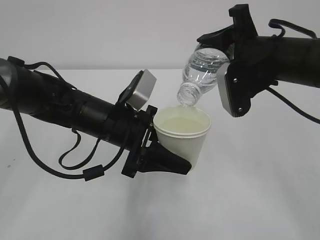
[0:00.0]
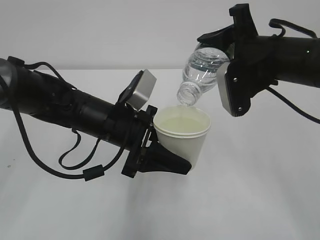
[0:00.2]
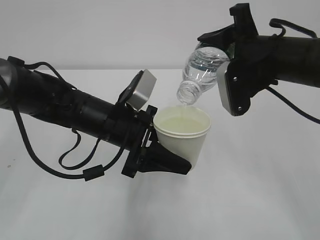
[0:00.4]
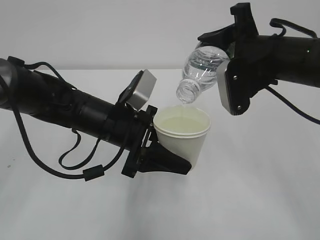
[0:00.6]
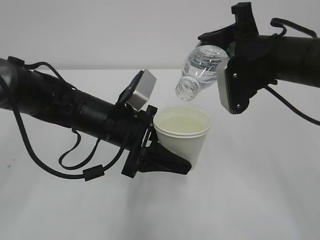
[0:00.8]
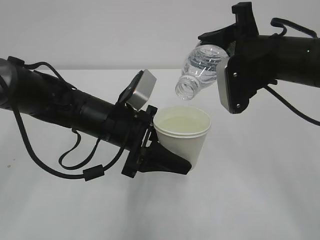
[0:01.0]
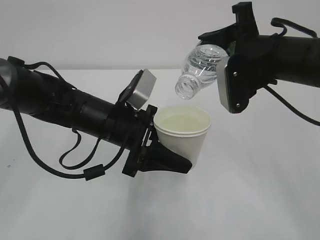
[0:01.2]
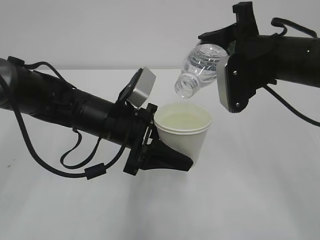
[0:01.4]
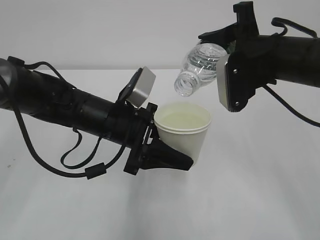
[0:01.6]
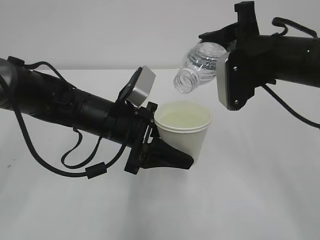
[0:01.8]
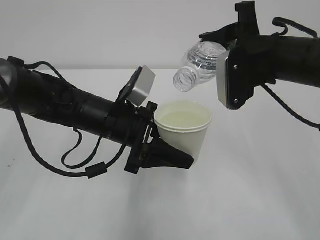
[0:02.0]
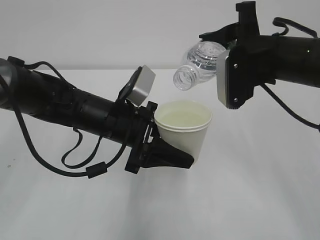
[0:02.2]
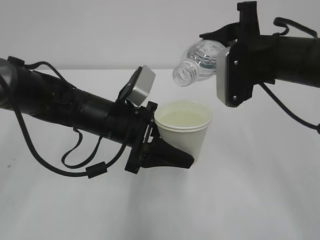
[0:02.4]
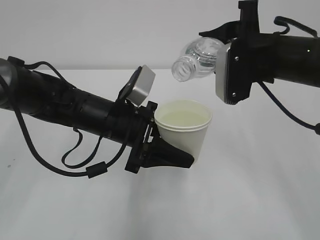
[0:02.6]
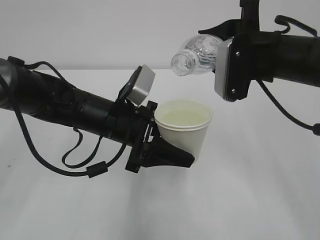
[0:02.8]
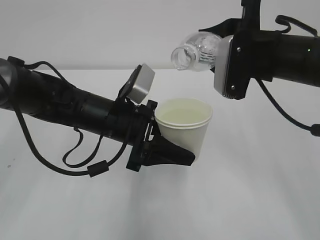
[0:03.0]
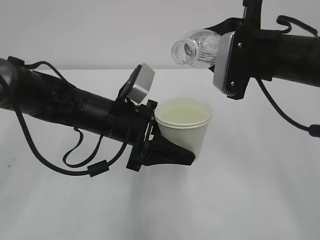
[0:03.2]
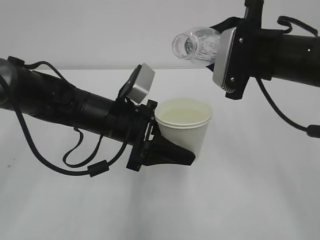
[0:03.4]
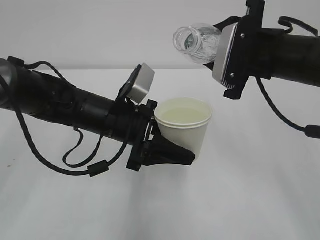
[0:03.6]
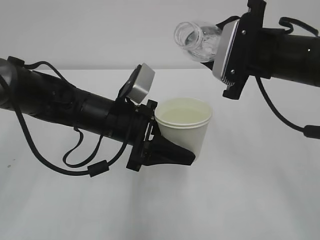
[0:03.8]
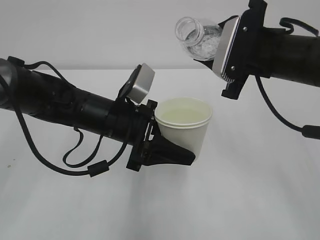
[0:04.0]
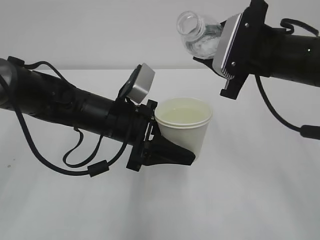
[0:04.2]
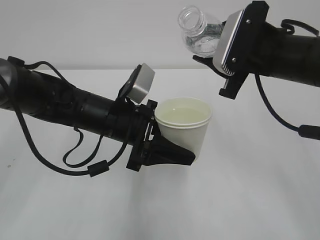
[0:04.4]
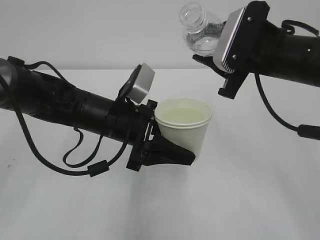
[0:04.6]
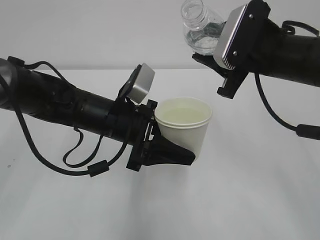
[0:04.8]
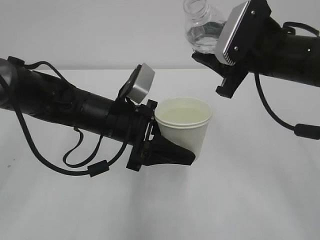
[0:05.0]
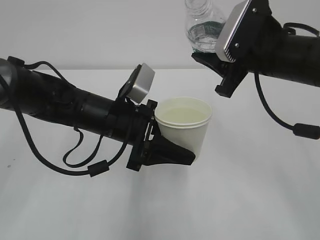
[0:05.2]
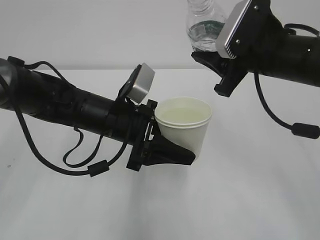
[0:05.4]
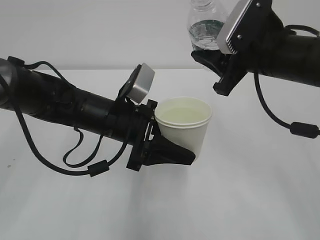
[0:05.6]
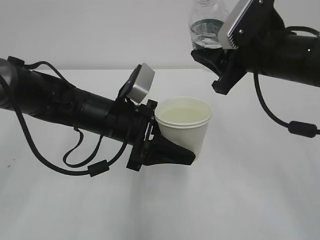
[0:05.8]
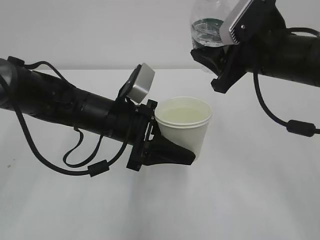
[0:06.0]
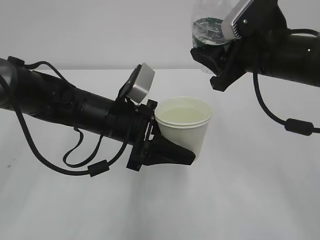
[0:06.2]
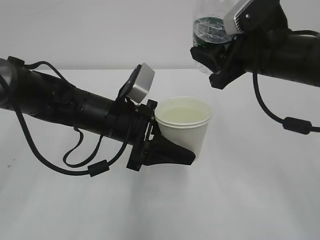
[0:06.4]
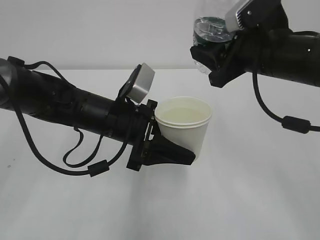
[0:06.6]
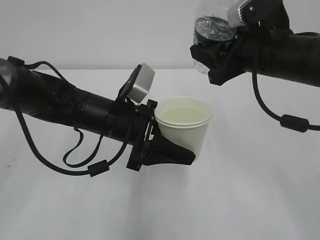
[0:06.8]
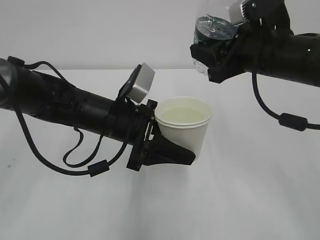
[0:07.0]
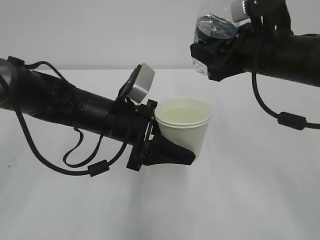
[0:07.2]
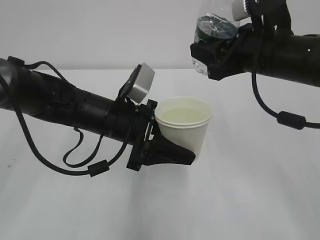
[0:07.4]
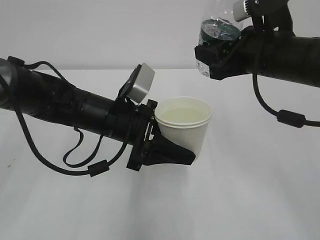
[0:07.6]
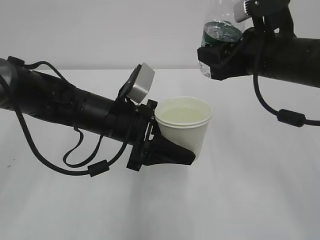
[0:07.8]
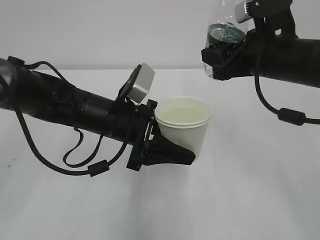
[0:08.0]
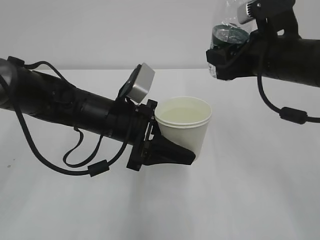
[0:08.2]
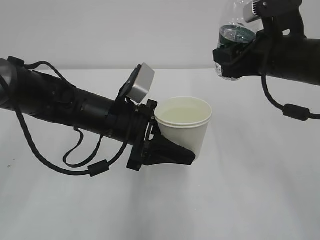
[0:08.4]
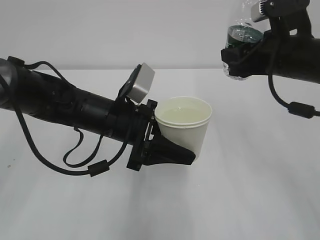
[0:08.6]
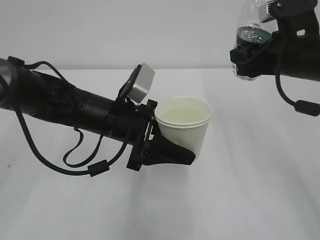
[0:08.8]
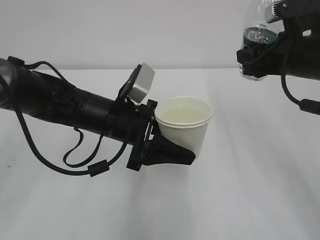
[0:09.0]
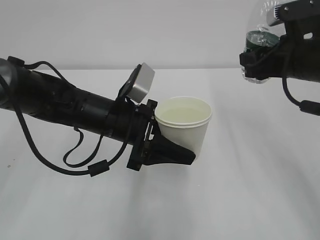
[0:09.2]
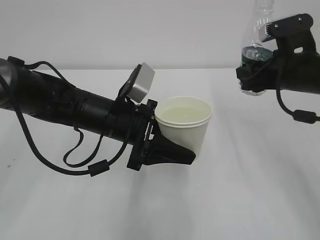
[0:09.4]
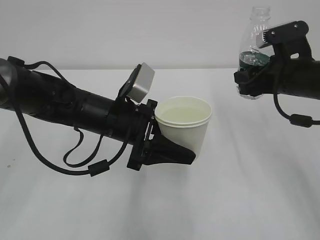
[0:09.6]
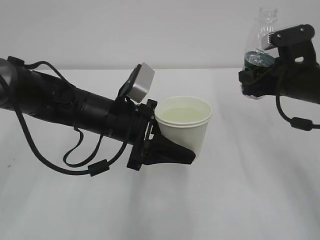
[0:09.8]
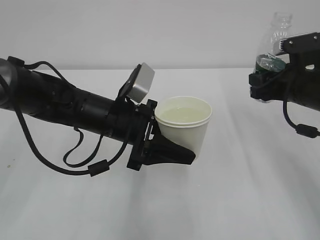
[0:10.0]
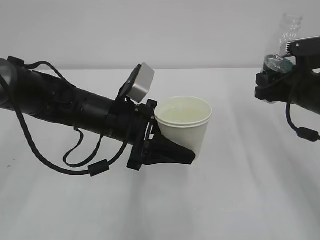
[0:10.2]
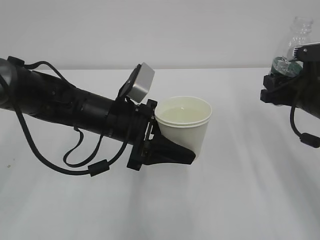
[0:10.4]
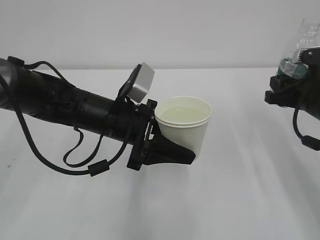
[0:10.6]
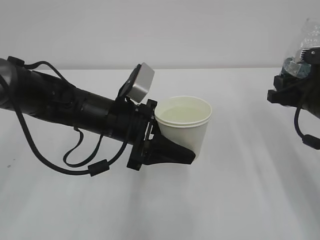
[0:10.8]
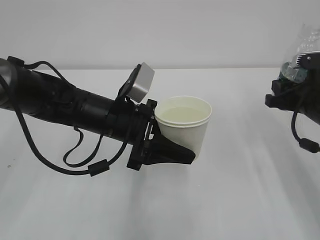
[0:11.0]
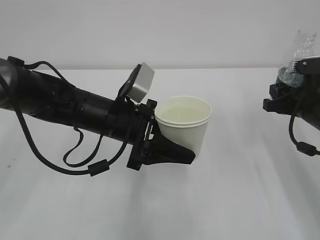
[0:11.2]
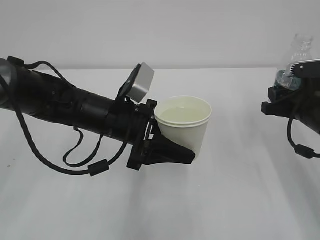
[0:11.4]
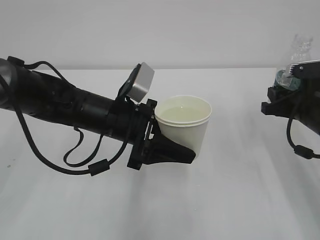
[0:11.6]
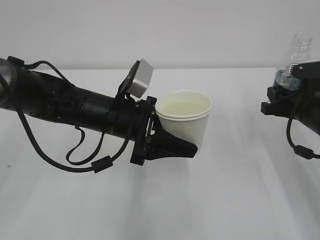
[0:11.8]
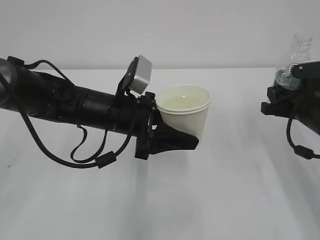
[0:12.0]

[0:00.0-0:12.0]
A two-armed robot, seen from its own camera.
0:00.0 to 0:01.6: The grippers make only small movements.
0:01.6 to 0:03.0: The grippers make only small movements.
0:07.6 to 0:09.0: The right gripper goes approximately 5 cm to the right.
0:09.0 to 0:10.4: The right gripper travels downward by approximately 5 cm.
0:10.4 to 0:12.0: The grippers make only small movements.

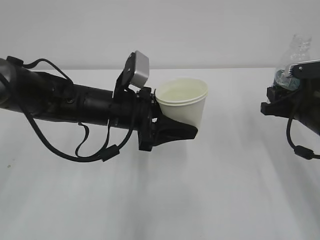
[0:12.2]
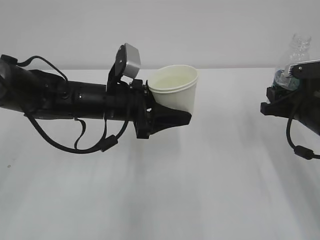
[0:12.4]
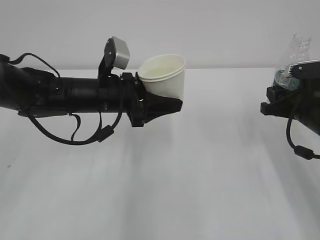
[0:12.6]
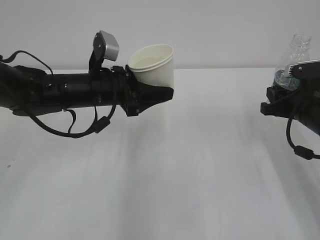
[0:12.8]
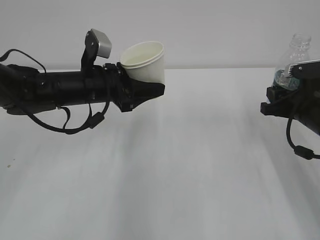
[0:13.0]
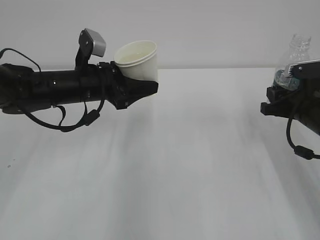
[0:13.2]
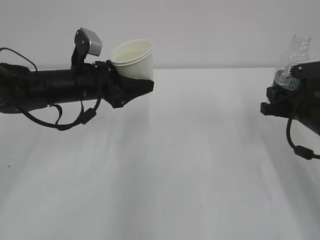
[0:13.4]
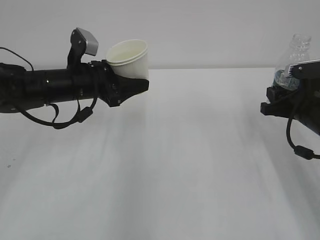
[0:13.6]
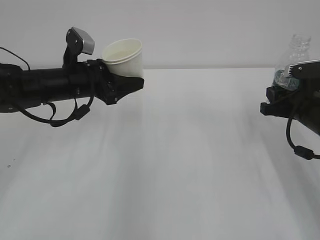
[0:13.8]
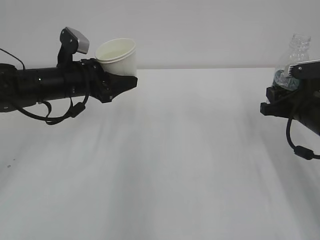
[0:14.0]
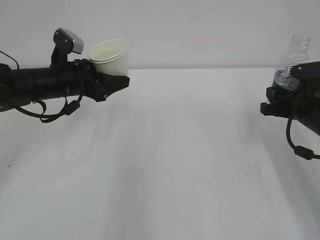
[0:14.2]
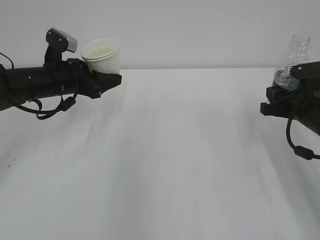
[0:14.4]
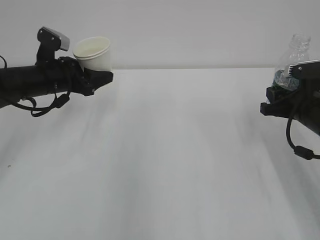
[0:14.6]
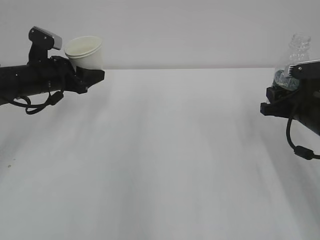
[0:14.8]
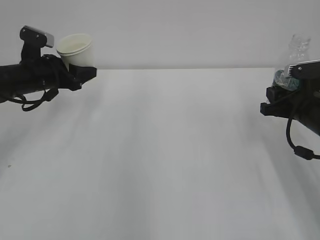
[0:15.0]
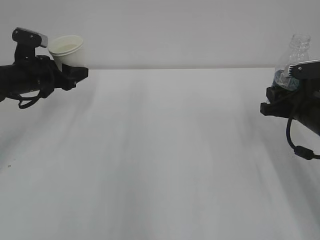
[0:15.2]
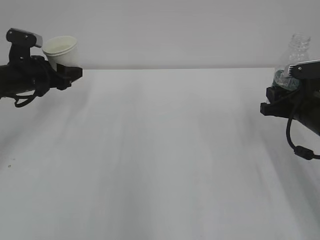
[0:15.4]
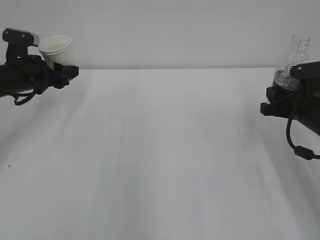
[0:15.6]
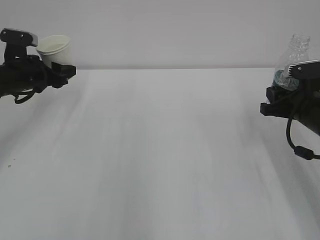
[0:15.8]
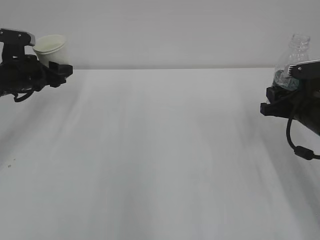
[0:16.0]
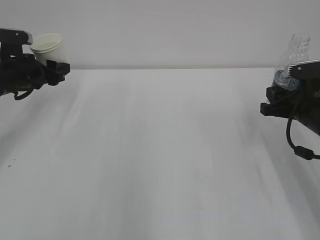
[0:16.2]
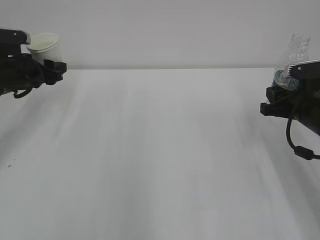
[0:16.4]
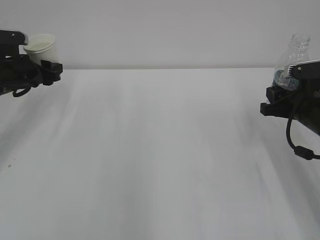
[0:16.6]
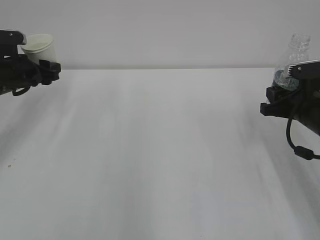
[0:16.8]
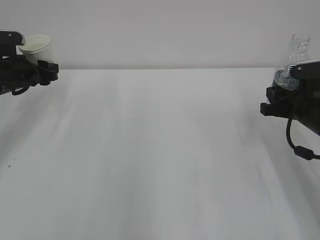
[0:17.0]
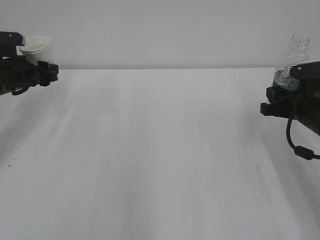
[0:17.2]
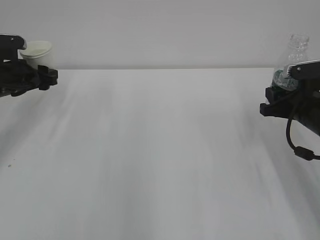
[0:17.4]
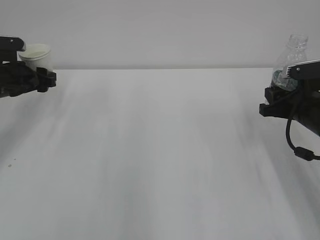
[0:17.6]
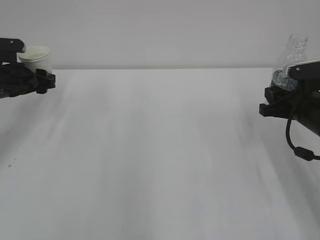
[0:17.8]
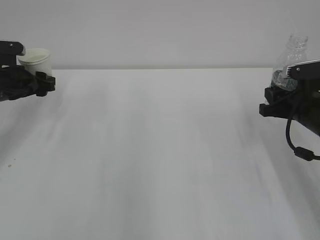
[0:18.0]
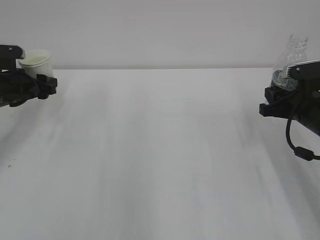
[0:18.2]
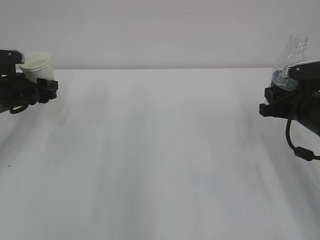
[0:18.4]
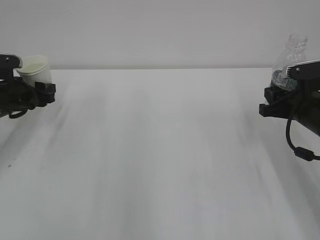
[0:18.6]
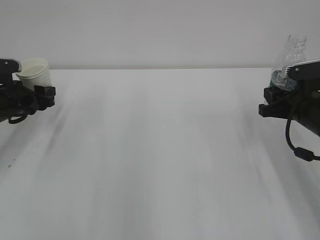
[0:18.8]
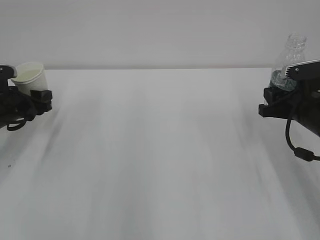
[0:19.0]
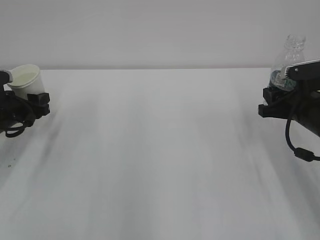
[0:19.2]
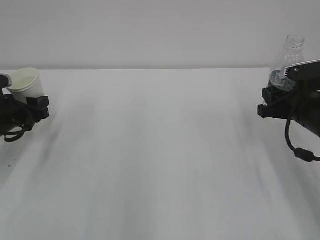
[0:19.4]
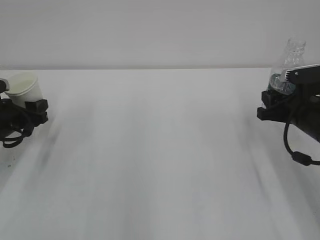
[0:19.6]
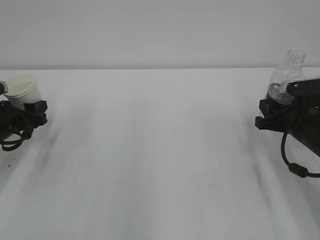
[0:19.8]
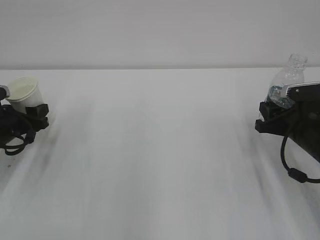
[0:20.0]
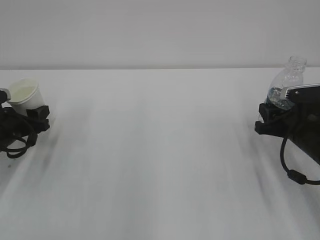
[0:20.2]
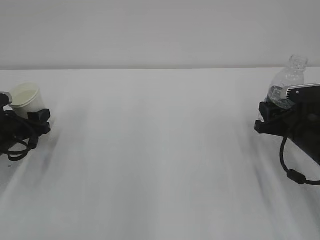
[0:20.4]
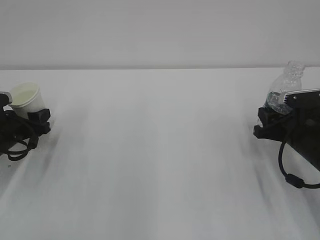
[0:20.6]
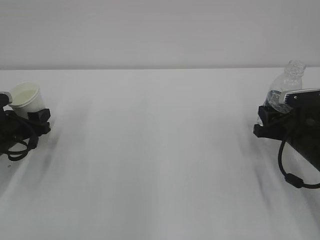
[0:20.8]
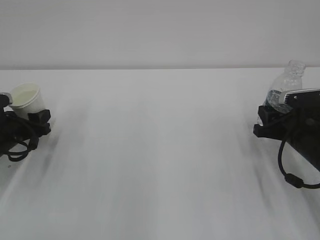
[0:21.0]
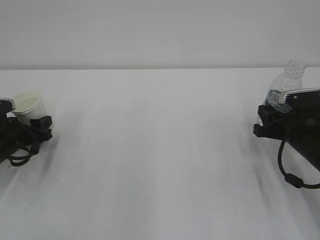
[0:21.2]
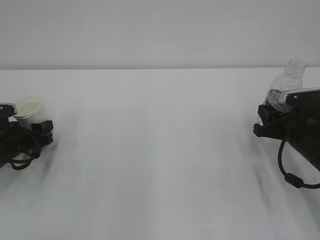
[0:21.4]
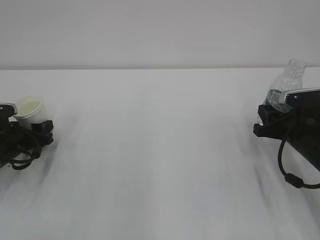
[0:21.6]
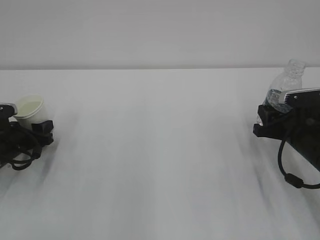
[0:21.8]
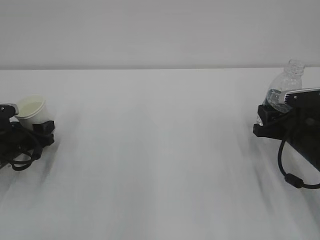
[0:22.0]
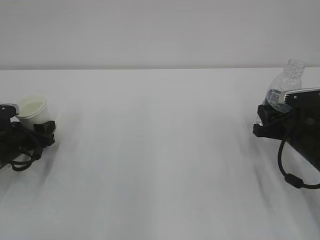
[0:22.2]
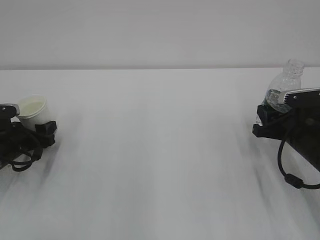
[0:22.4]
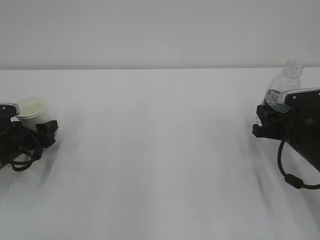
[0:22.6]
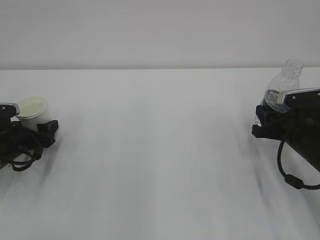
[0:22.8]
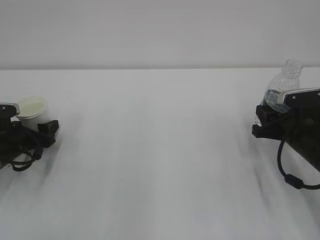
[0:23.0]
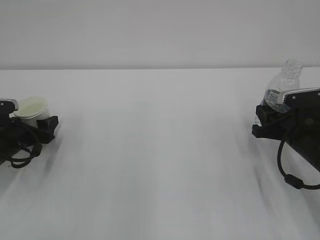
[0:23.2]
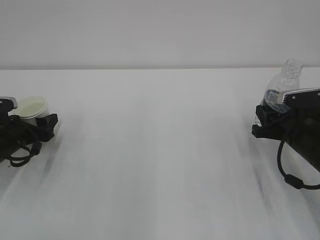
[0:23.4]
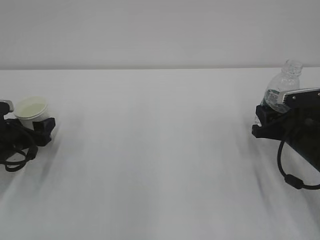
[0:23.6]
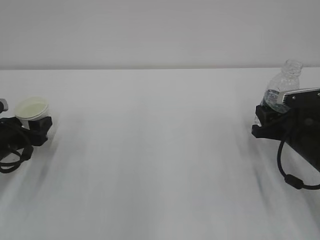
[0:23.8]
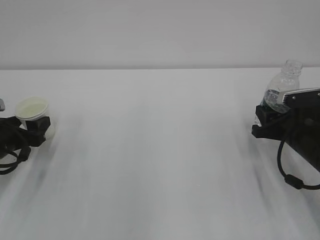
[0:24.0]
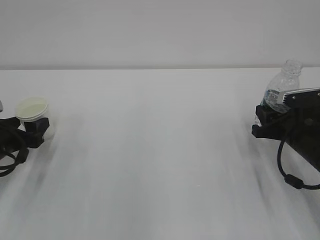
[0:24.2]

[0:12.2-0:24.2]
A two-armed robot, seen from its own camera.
0:12.2 to 0:13.8: The left gripper goes some 10 cm to the left and forward.
0:13.8 to 0:15.2: The left gripper is displaced to the left by some 10 cm.
0:15.2 to 0:16.6: The grippers stay close to where they were, moving slightly.
0:16.6 to 0:18.2: There are only small adjustments of the grippers.
0:18.2 to 0:19.8: The left gripper moves backward, some 5 cm.
0:19.8 to 0:21.2: The grippers move only a little.
0:21.2 to 0:22.6: The left gripper opens up.
0:22.6 to 0:24.2: The left gripper changes place by some 5 cm.
